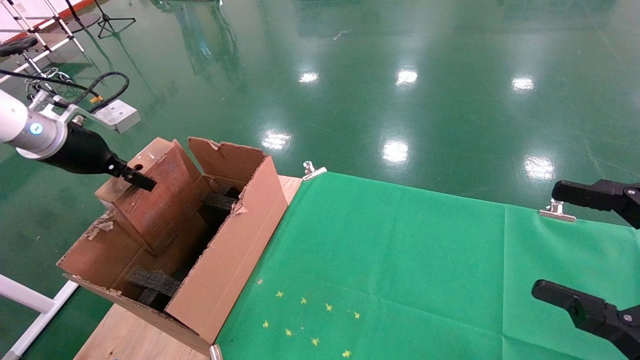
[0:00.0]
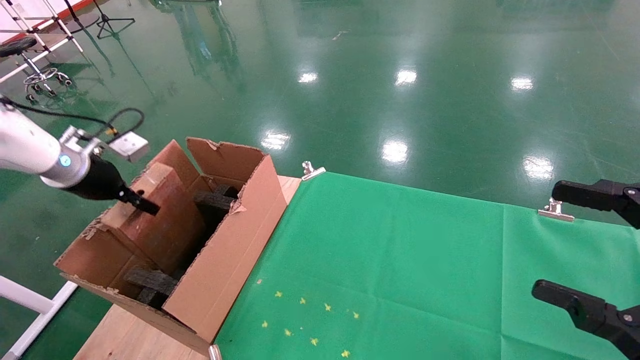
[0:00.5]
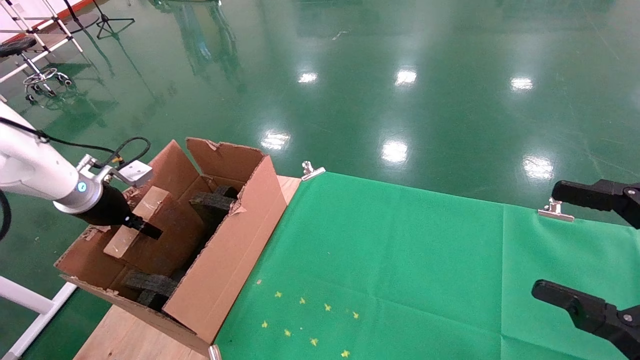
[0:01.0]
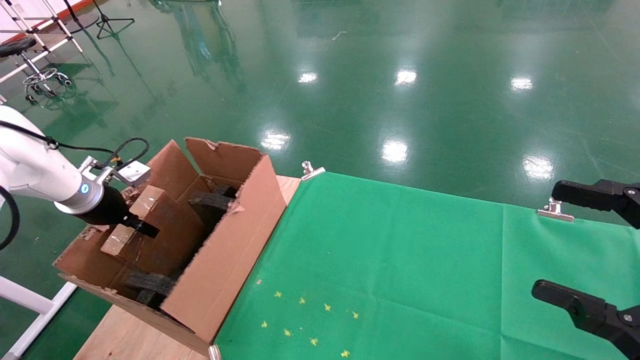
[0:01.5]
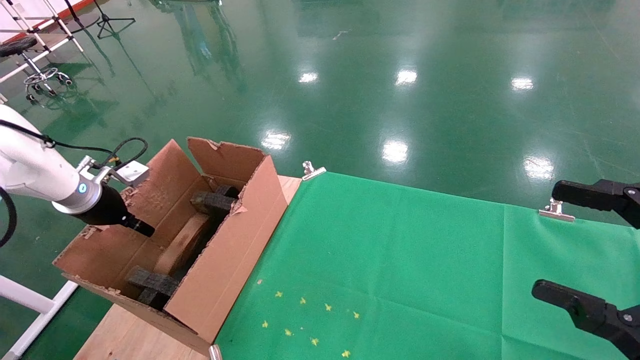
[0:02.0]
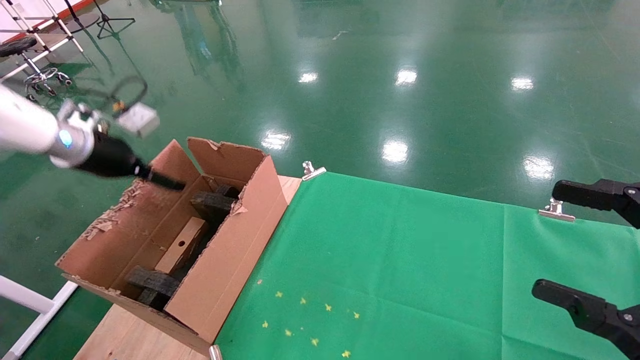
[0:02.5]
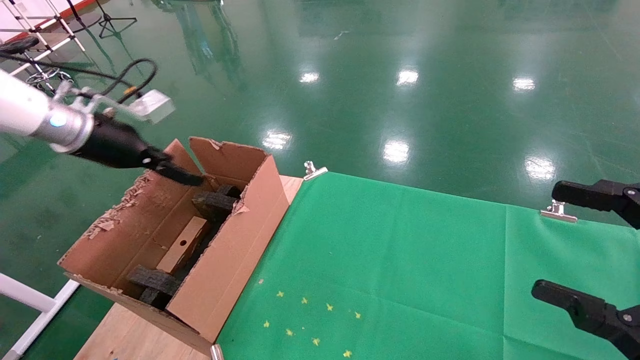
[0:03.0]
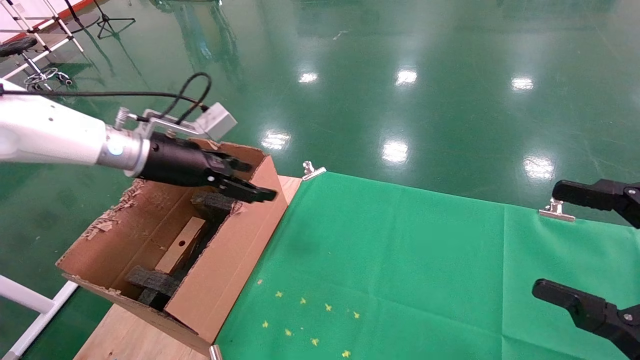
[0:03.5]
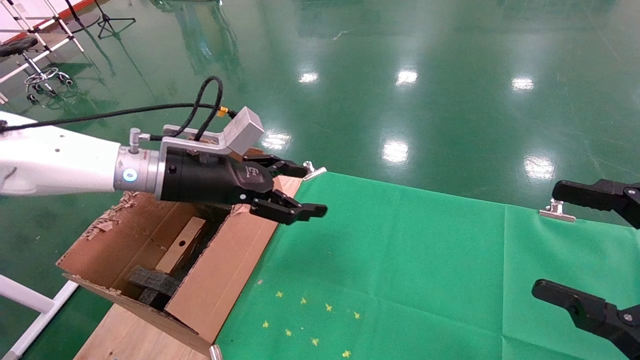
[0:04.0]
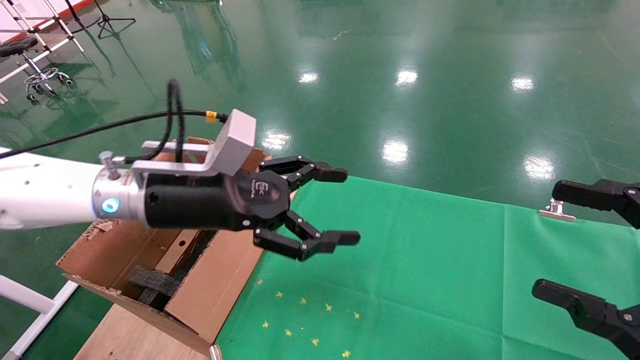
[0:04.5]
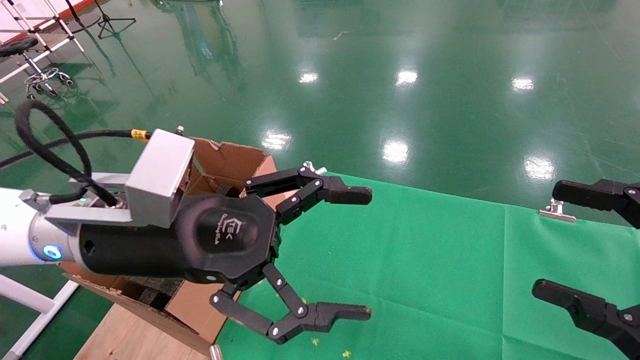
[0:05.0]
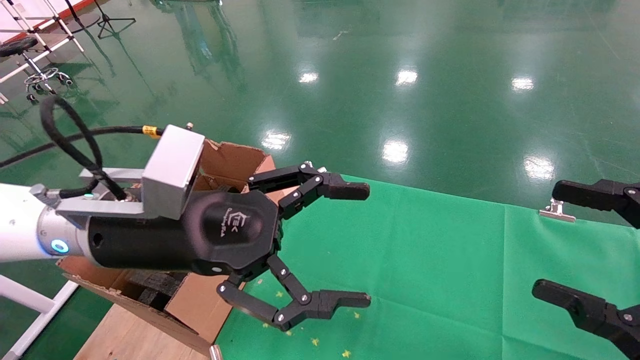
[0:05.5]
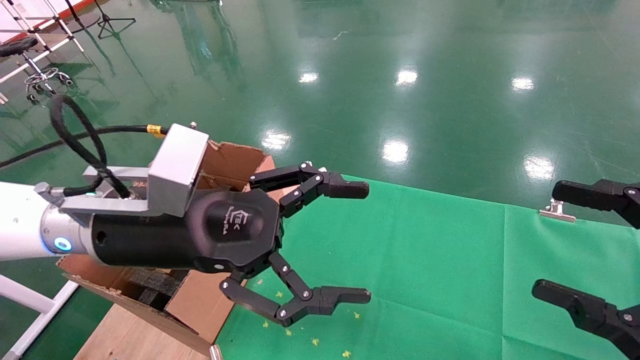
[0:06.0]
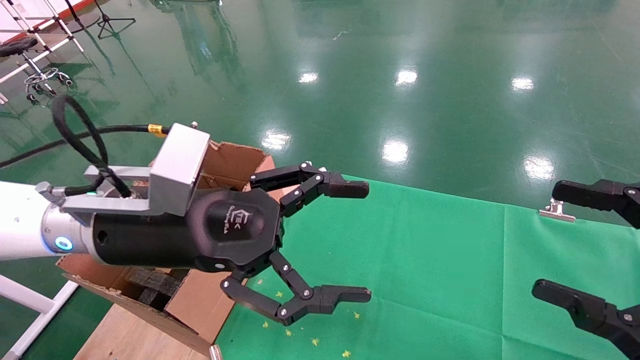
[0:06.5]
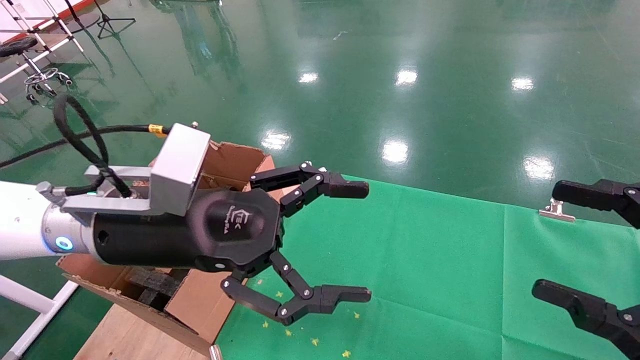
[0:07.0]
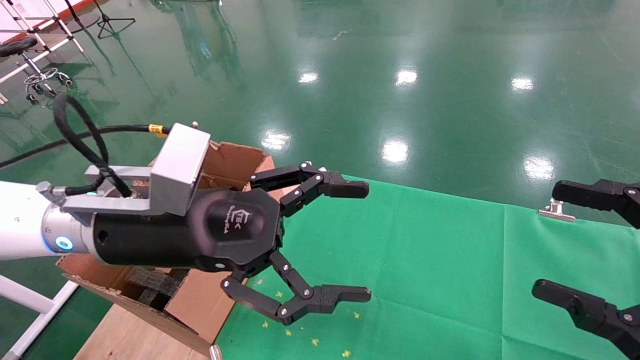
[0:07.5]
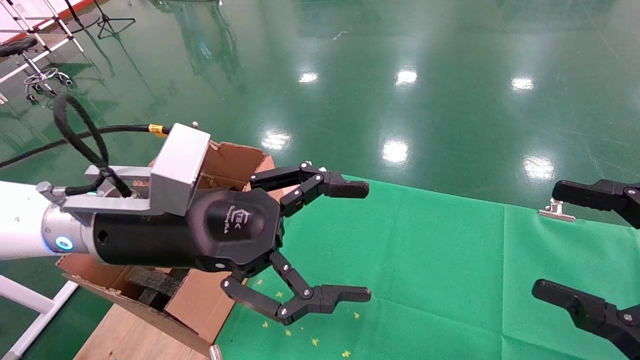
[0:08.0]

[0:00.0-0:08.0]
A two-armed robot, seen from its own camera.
Task of the whole recording: using a robotic arm to pick up a cardboard box and palace it the carton.
Step, 0:00.0 to 0:02.5: Place the mouse and the power cord paper box into the container.
0:00.0 to 0:02.0: The left gripper shifts approximately 10 cm downward.
0:02.0 to 0:04.0: The left gripper is displaced to the right by some 20 cm, and opens its fingers.
0:04.0 to 0:06.0: The left gripper shifts roughly 15 cm backward and to the right.
0:06.0 to 0:08.0: Both grippers stay about where they are.
